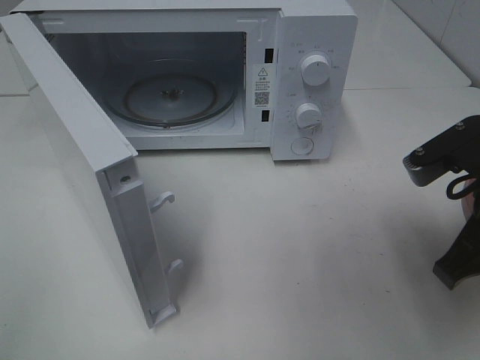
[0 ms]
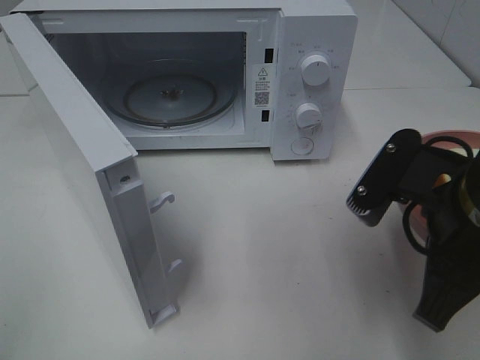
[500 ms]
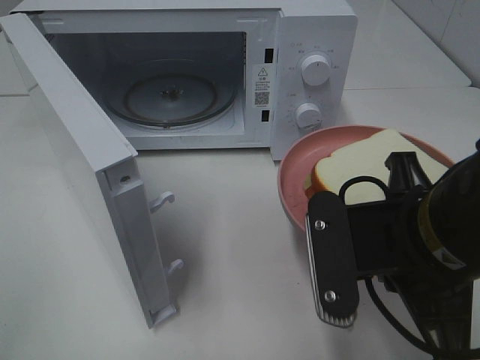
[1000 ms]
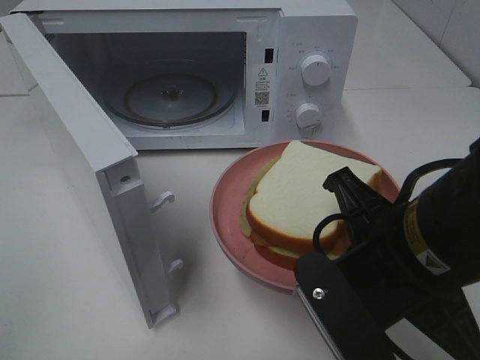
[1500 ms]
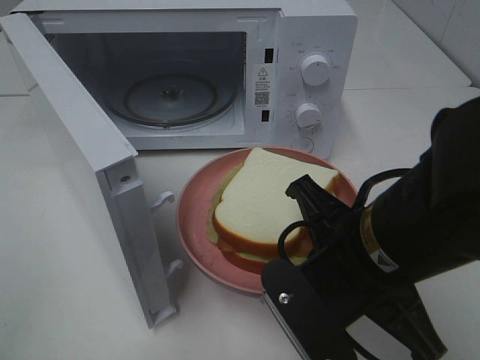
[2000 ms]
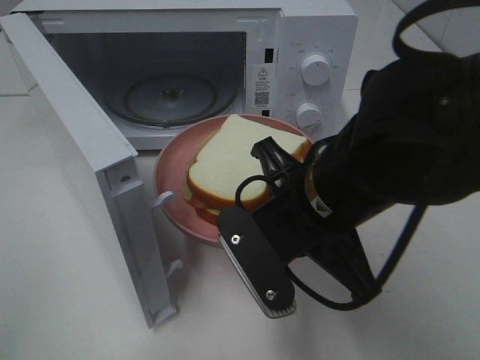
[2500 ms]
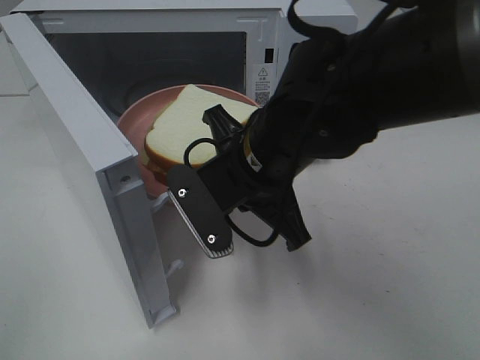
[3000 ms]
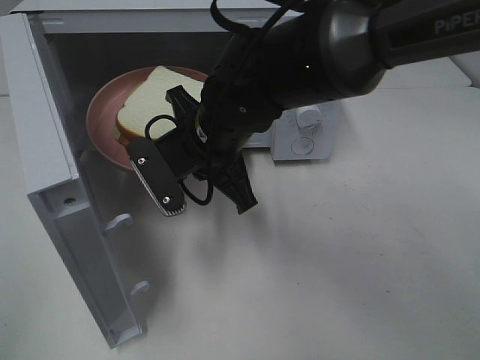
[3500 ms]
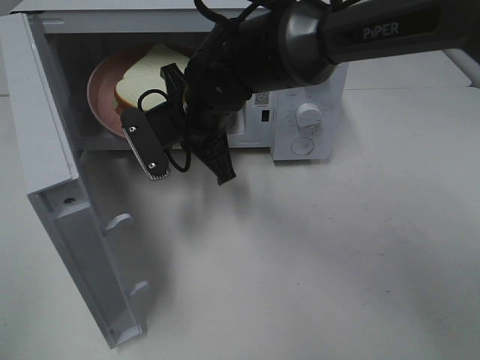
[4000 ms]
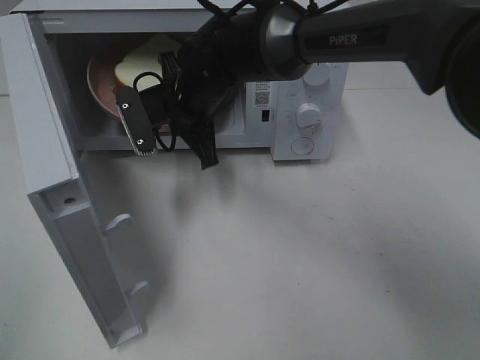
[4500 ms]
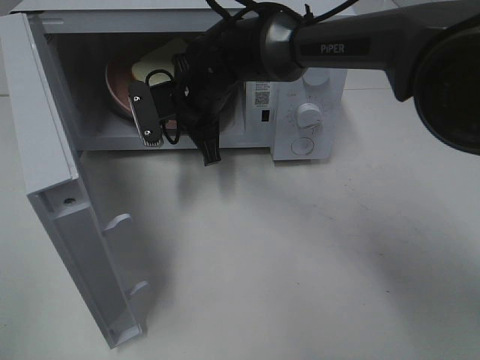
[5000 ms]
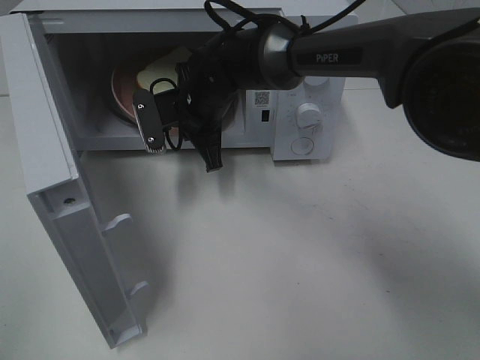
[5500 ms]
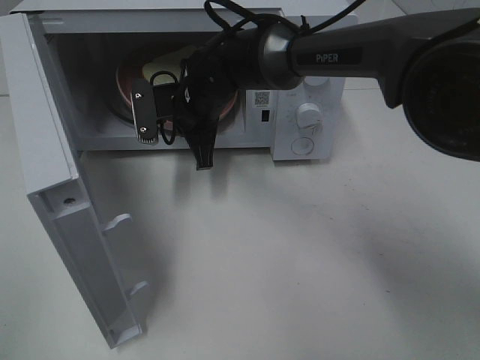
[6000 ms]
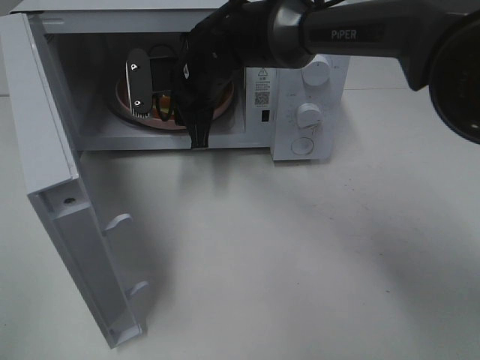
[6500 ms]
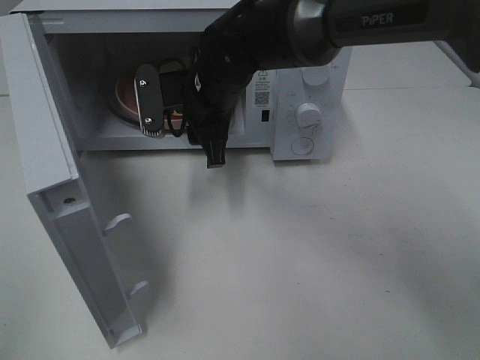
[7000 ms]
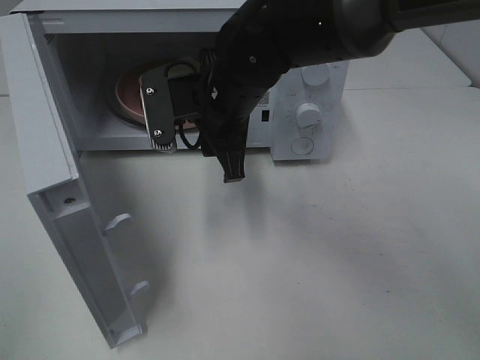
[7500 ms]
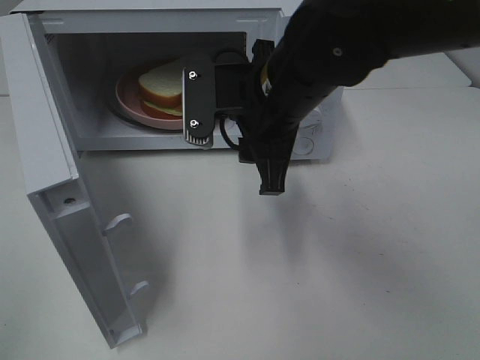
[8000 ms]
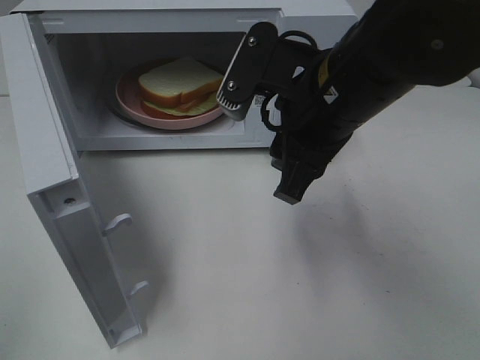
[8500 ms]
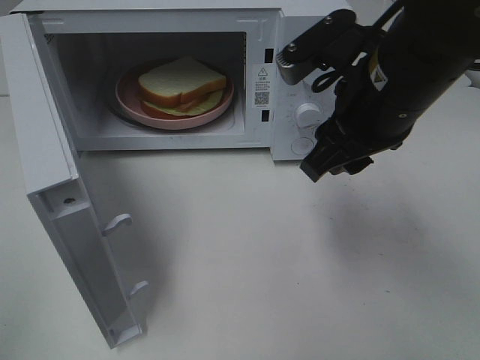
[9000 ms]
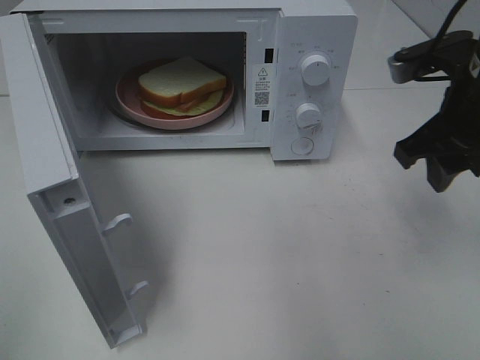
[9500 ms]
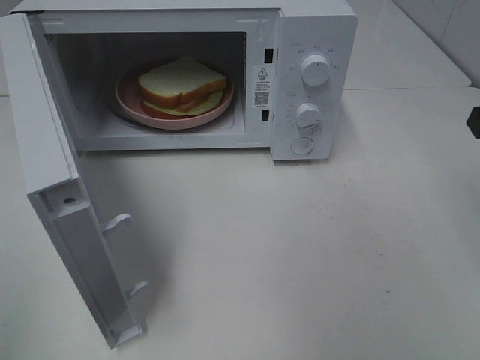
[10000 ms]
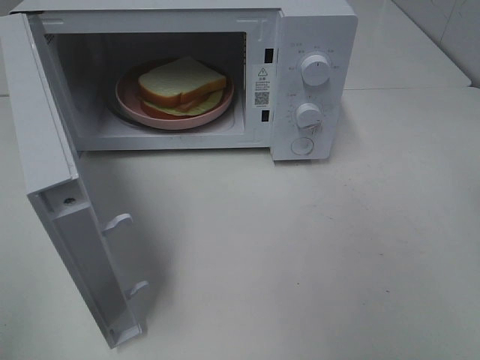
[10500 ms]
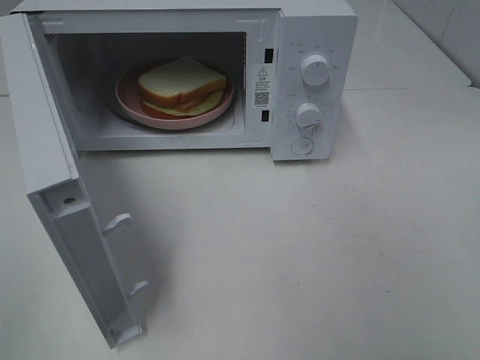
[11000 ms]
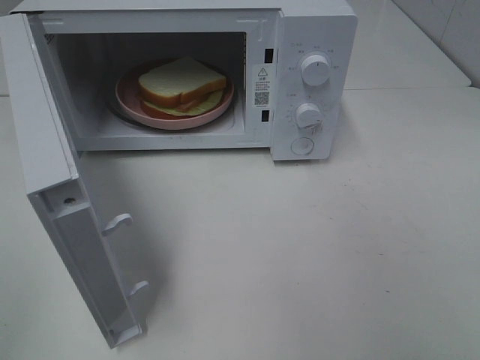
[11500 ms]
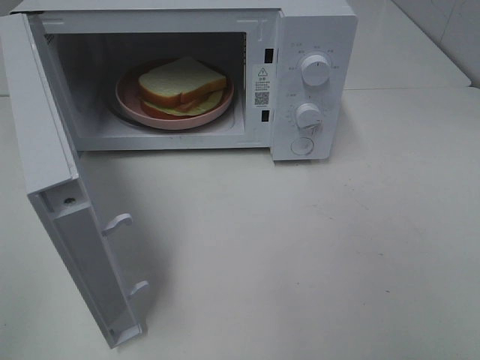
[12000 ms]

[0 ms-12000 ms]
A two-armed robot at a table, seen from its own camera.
Task of the whole recording: Heat Sandwich.
Step, 0 ms to 7000 ms: Right hand: place the plate in the microwave.
0 ms to 2000 ms: The right gripper heads to the left, covering approximately 10 cm.
2000 ms to 4000 ms: The right gripper travels forward and to the left by some 25 cm.
4000 ms to 6000 ms: The right gripper shifts about 5 cm forward.
6000 ms to 8000 ms: The right gripper shifts some 20 cm backward, to the right and upward, and opens.
8000 ms to 10000 ms: The right gripper moves to the right, roughly 25 cm.

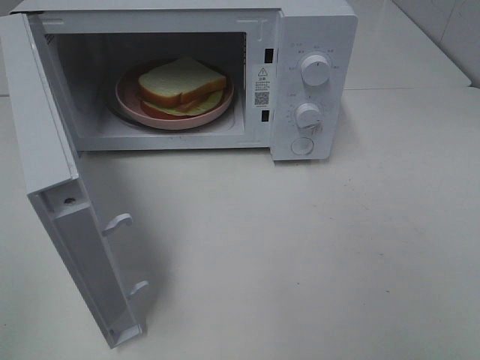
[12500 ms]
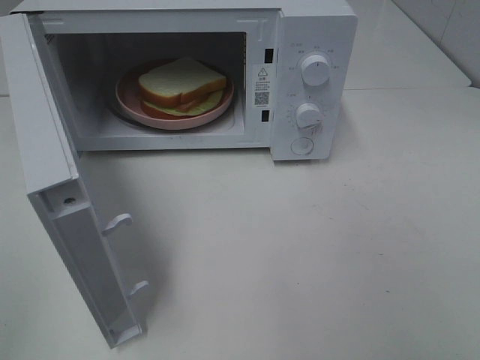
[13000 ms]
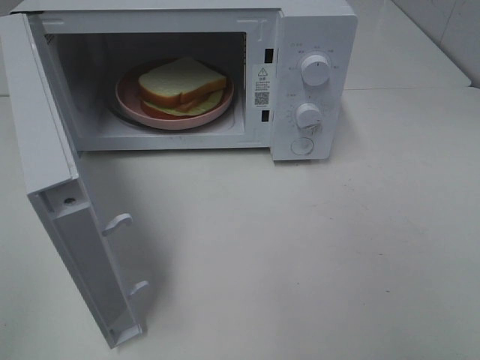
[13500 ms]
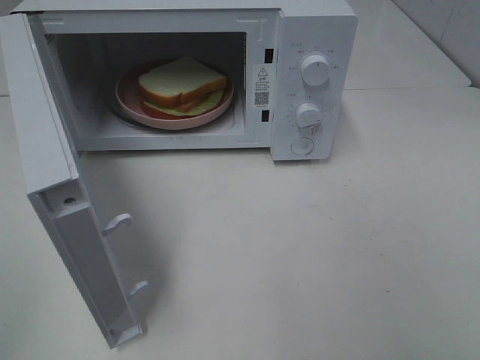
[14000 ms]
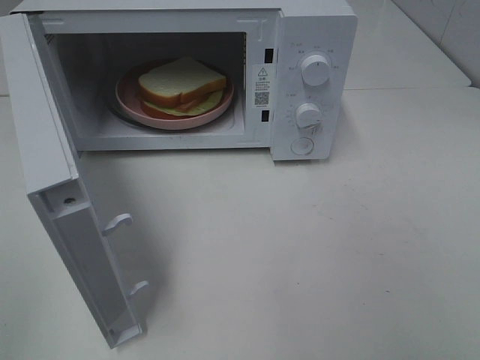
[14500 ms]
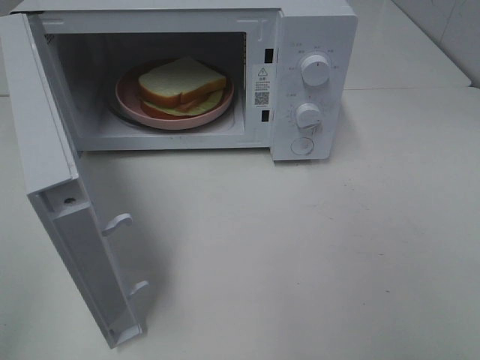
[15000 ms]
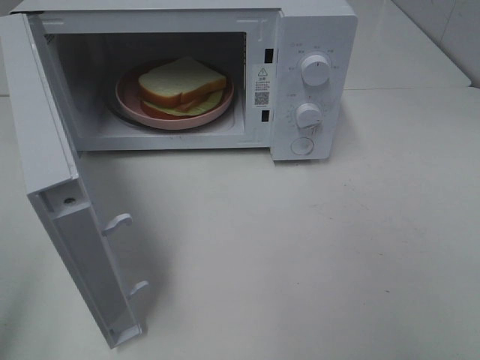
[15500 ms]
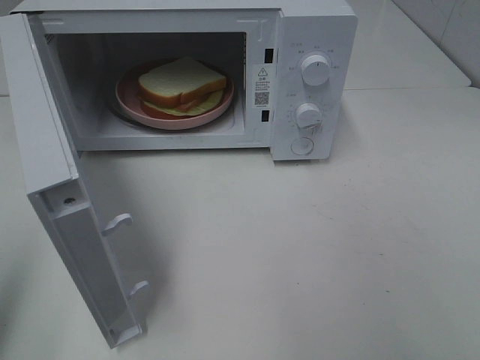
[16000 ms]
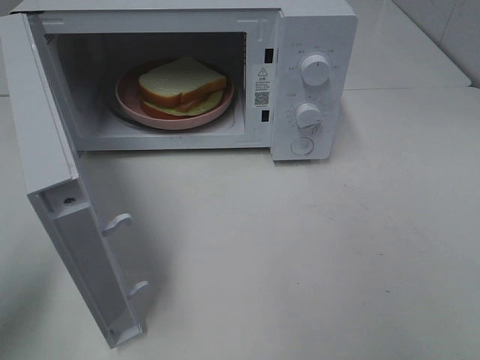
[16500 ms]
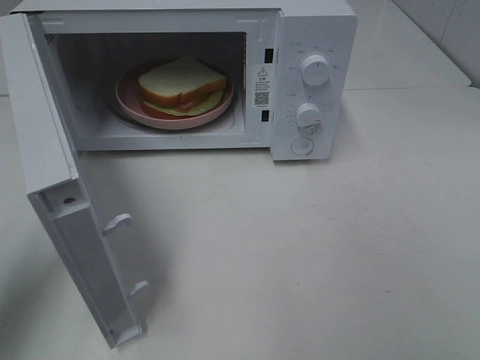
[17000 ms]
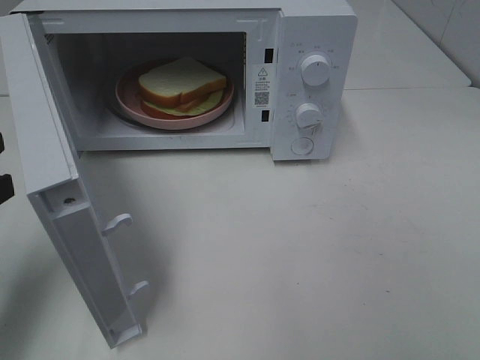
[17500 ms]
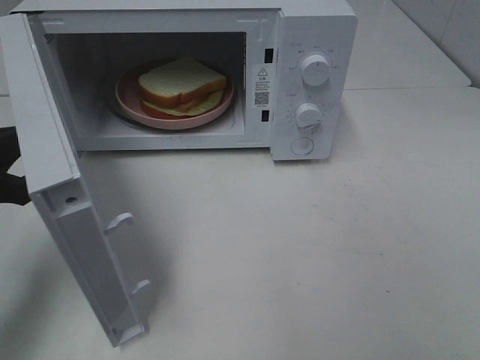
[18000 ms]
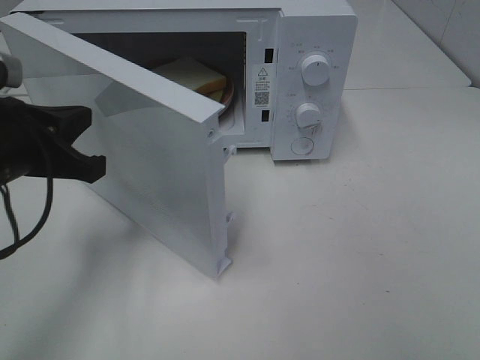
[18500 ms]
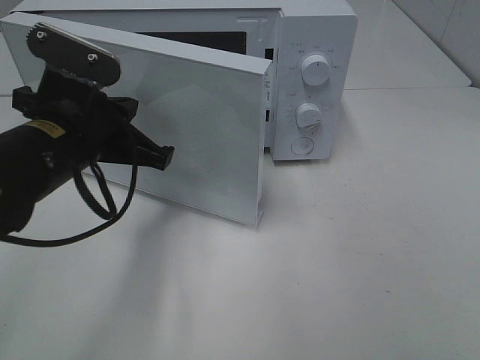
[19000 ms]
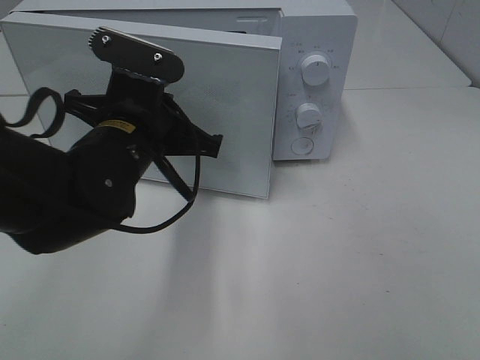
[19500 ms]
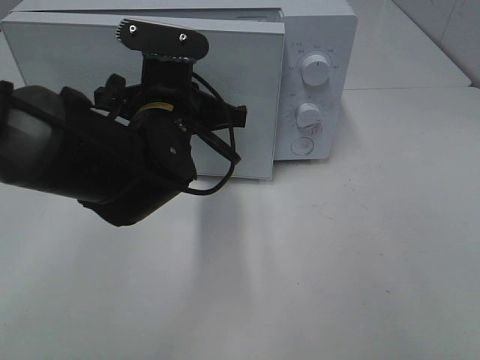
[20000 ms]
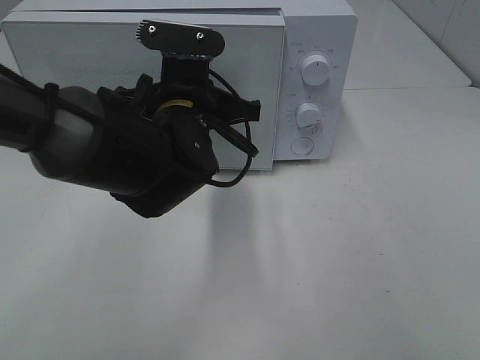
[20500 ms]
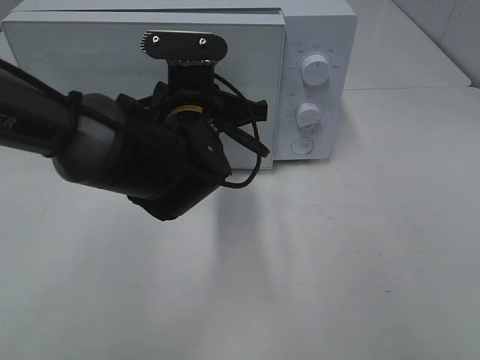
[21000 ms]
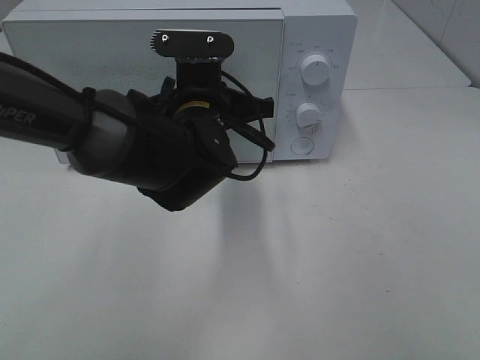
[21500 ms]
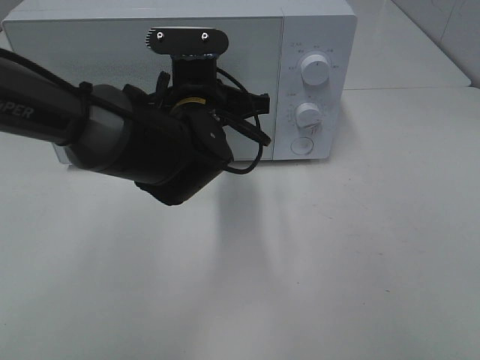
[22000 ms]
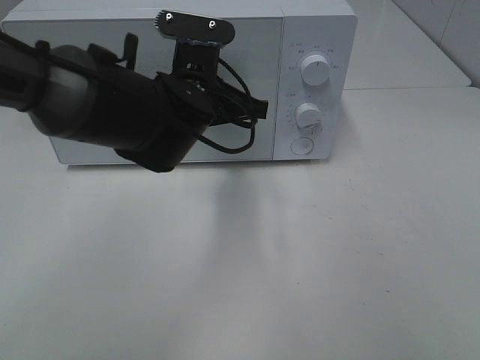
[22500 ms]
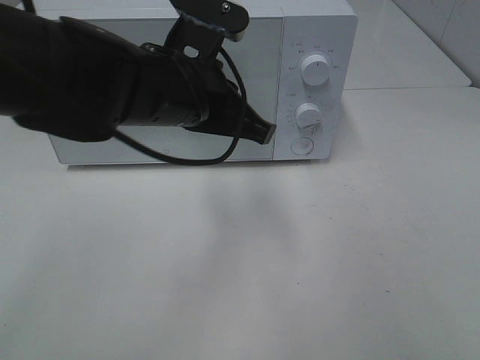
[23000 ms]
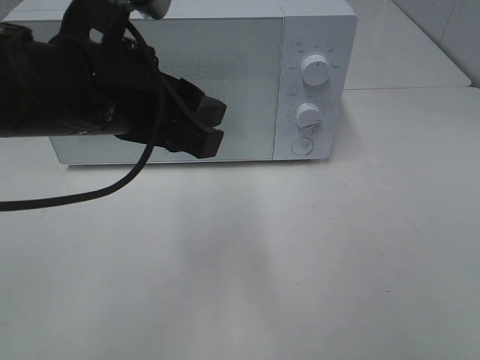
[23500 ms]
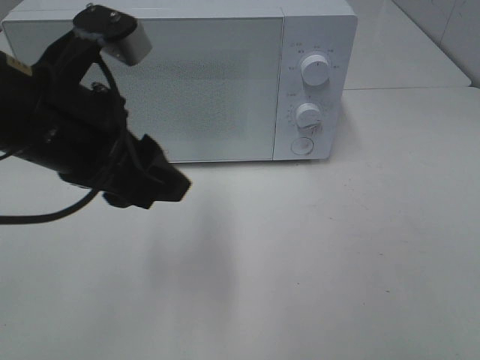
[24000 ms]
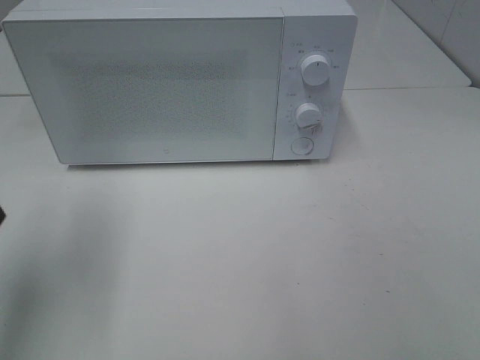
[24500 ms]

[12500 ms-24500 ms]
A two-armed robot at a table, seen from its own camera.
Task of the whole recording: Heat Sandwich.
Step, 12500 ms to 23500 ms: Left hand: close the microwave door.
12500 ms to 14500 ms: Both grippers stay put.
14500 ms to 16500 ms: The left gripper travels forward by some 10 cm, and closes up.
16500 ms to 18500 ms: The left gripper is displaced forward, to the right and downward by some 15 cm.
18500 ms to 20500 ms: The left gripper heads to the right and forward, covering roughly 20 cm.
20500 ms to 22500 ms: The grippers make only small movements.
22500 ms to 24500 ms: The left gripper travels to the left, backward and upward by about 30 cm, and opens its fingers.

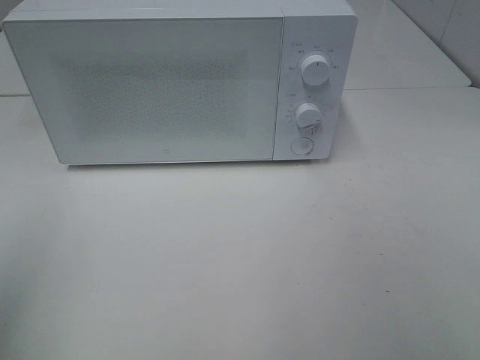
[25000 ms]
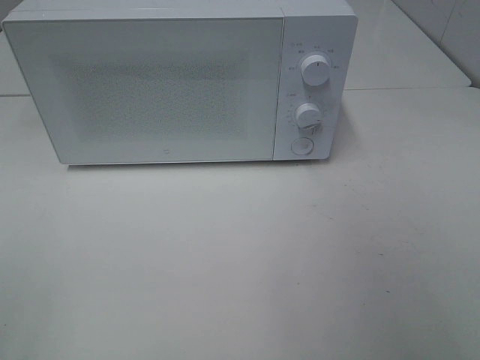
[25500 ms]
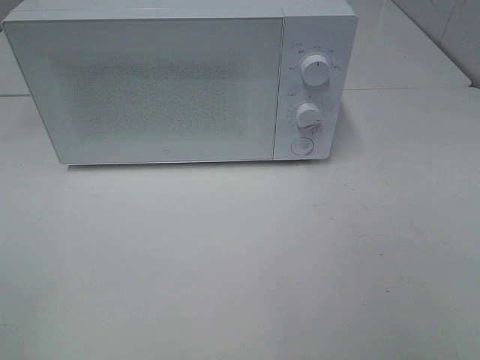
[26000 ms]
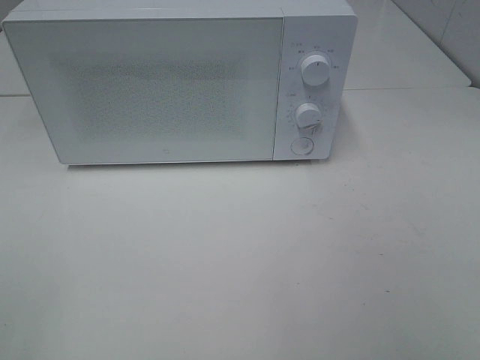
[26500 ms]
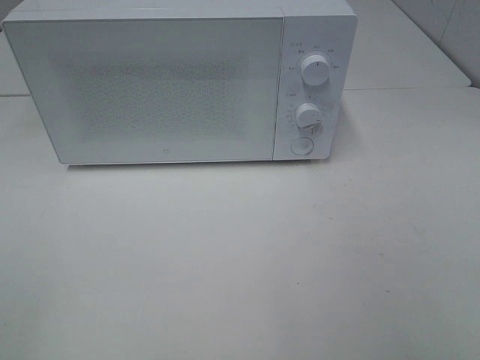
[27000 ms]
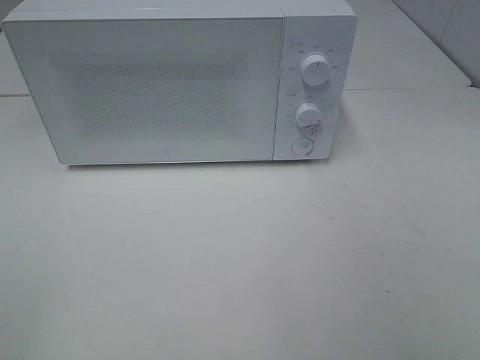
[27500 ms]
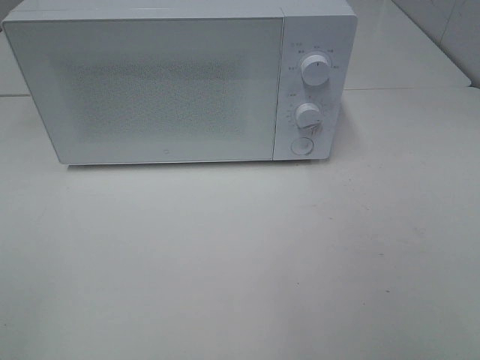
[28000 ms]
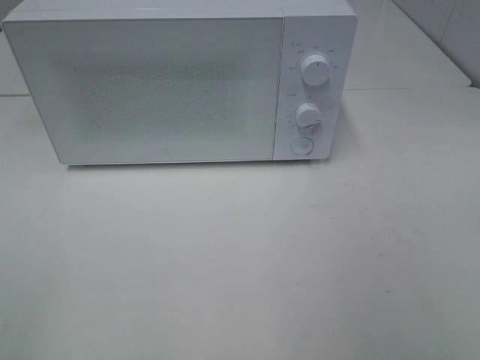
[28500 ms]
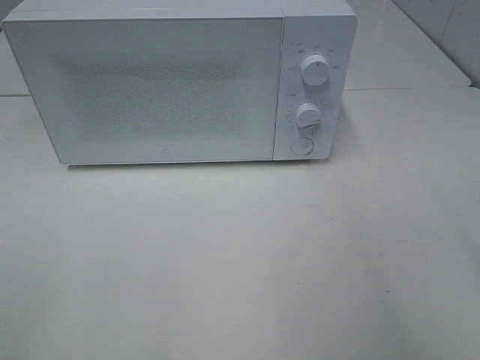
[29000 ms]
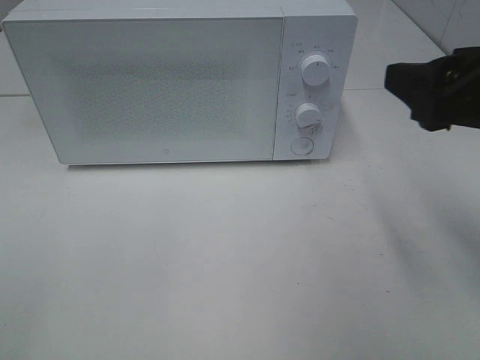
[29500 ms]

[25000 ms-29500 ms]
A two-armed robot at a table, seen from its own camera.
Task of the whole recording: Heat Sandwich.
27000 ms to 29500 ms: The right gripper moves forward, some 20 cm.
